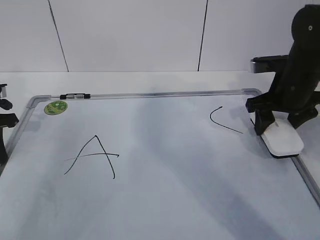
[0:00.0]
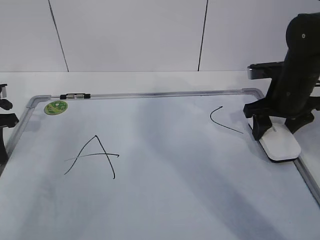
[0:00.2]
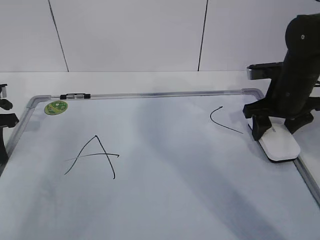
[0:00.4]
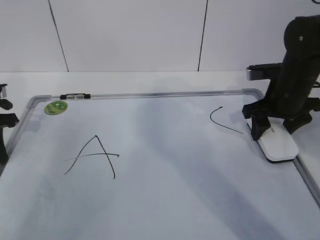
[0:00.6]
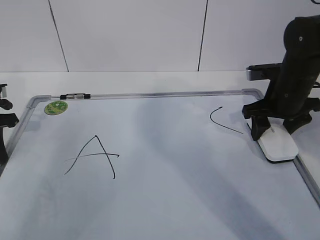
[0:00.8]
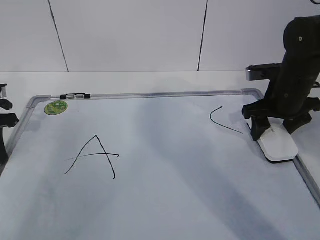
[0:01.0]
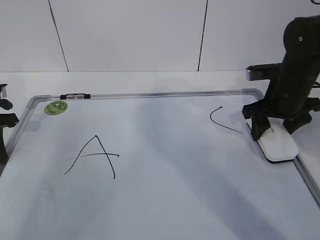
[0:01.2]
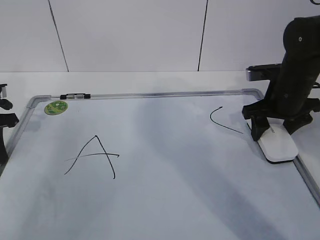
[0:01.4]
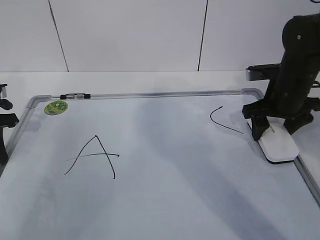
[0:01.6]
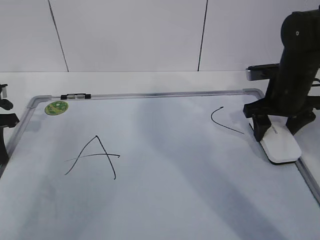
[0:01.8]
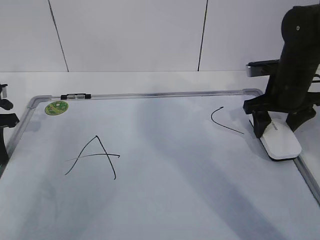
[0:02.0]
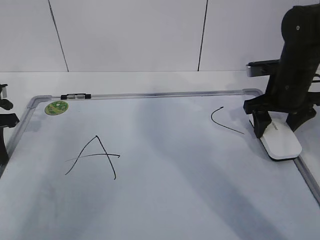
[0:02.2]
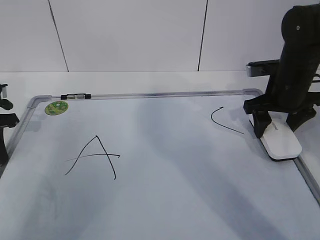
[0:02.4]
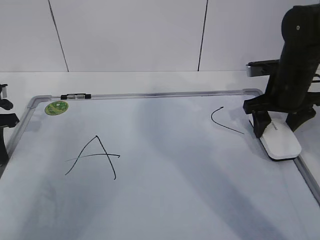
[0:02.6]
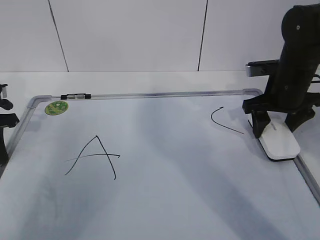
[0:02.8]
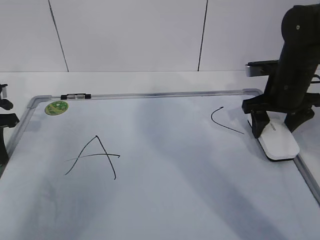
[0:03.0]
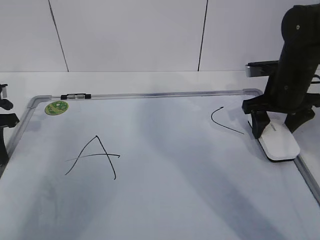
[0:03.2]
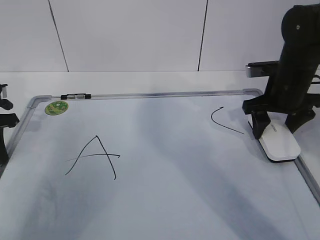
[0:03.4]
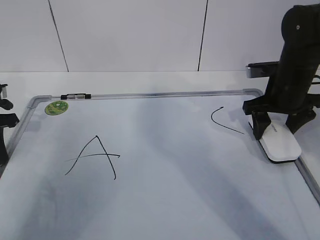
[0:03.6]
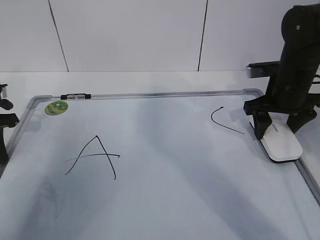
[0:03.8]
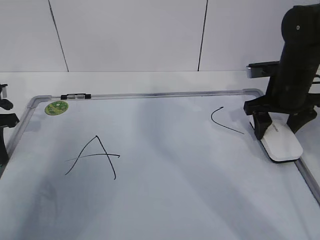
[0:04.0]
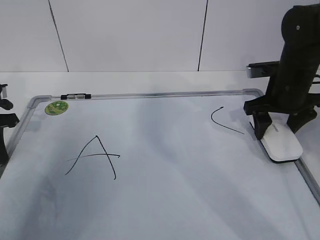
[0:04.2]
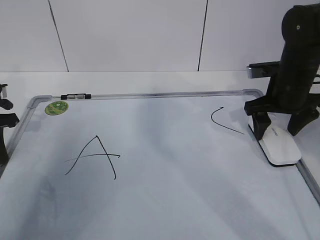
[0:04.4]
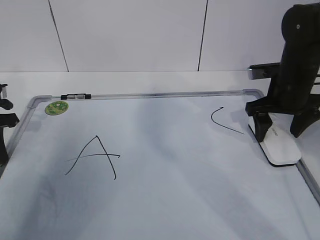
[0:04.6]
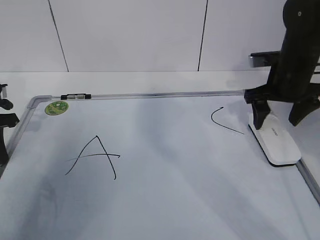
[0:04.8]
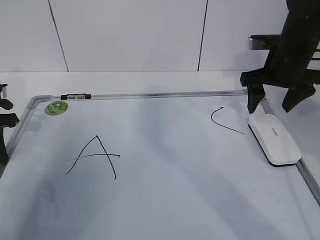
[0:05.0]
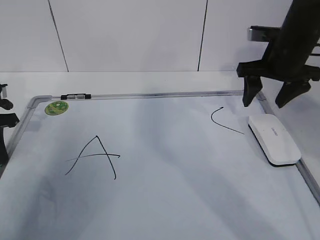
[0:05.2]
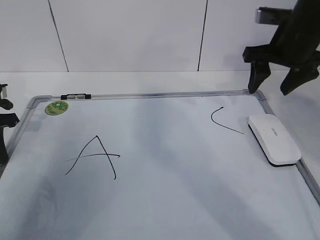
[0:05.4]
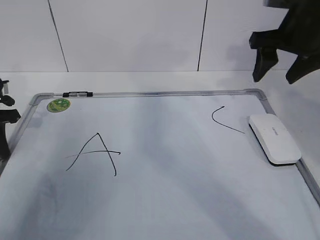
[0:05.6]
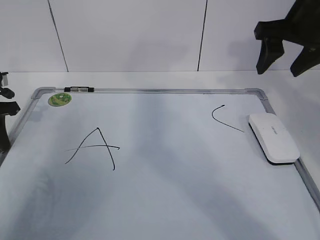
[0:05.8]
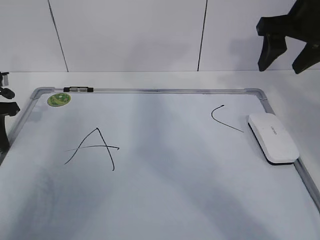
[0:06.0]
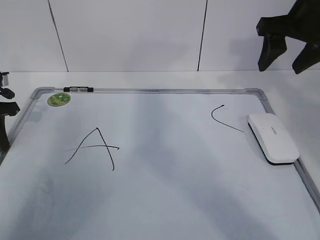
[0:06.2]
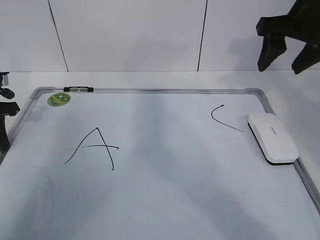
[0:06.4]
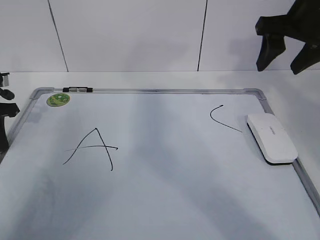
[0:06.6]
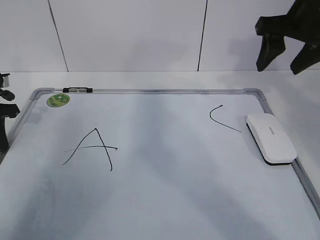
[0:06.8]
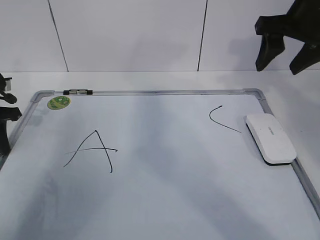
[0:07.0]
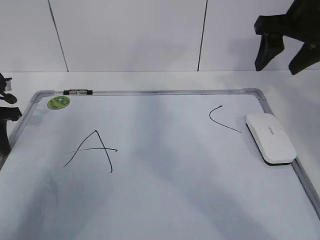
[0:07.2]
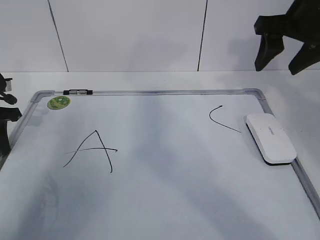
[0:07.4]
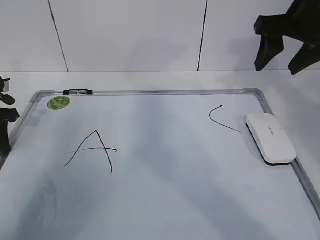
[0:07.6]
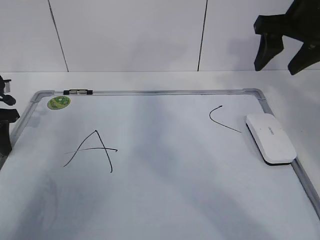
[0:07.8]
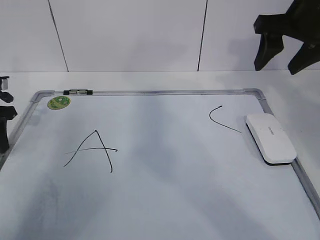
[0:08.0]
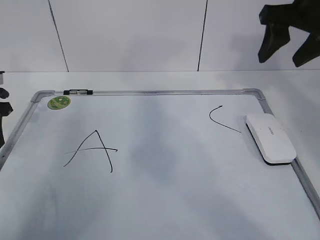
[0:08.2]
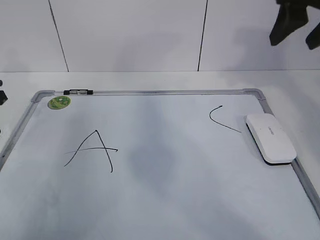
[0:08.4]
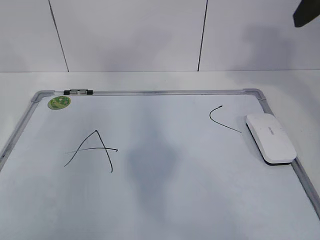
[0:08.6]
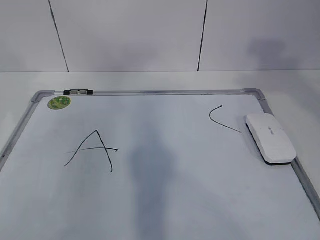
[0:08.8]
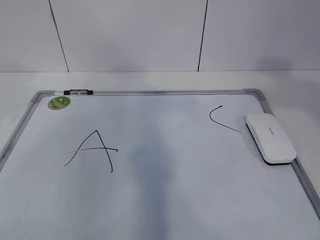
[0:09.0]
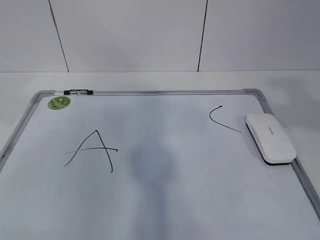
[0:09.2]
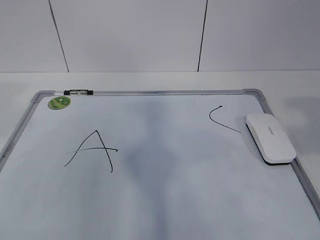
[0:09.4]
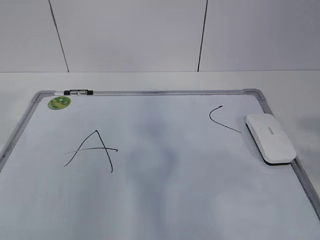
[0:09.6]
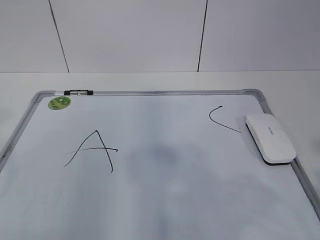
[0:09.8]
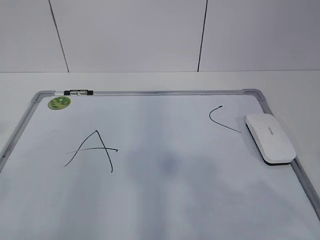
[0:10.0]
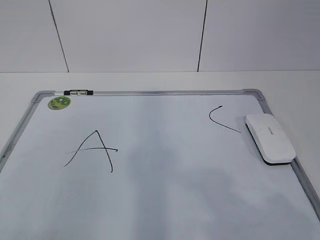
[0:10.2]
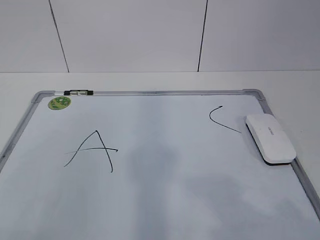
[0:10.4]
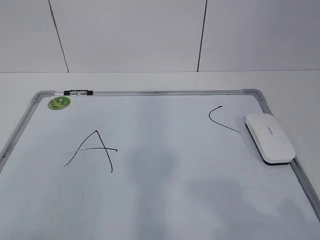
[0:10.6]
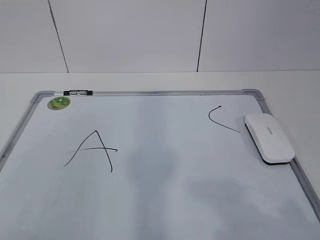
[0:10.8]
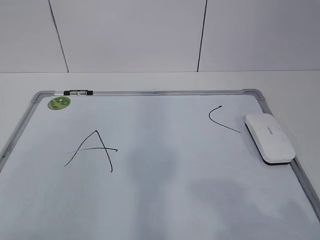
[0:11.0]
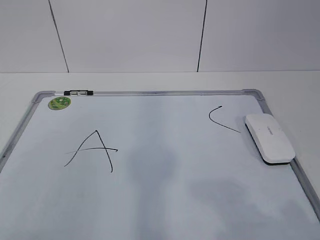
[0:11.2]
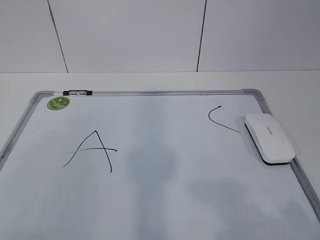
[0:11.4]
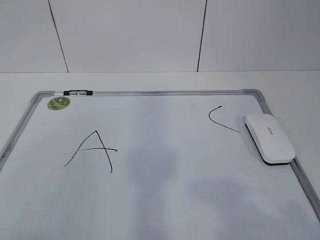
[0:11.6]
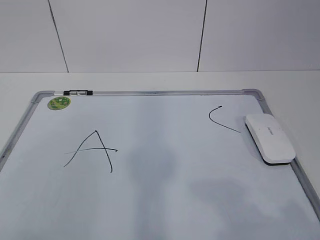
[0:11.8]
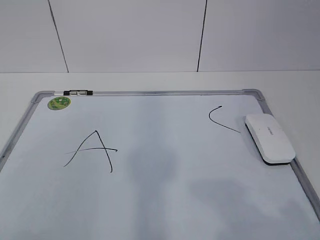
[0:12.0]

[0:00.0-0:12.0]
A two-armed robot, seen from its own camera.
Task of the whole recording: pick up the eraser on the blackboard and erase the letter "B".
0:00.0 to 0:01.6: The grippers make only small movements.
0:01.6 to 0:03.0: The two grippers keep their place.
0:03.0 to 0:04.4: The right gripper opens.
0:04.4 to 0:06.0: The right gripper goes some 15 cm upward, and closes up.
0:06.0 to 0:07.6: The left gripper opens up.
0:07.6 to 0:09.0: The left gripper goes approximately 20 cm upward and backward; the right gripper is displaced backward and upward by roughly 20 cm.
0:09.0 to 0:10.4: The left gripper is displaced backward by approximately 25 cm. The right gripper moves backward and downward, roughly 25 cm.
